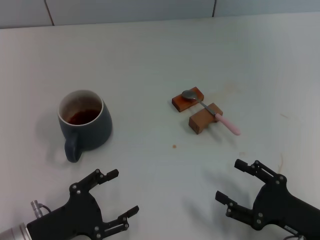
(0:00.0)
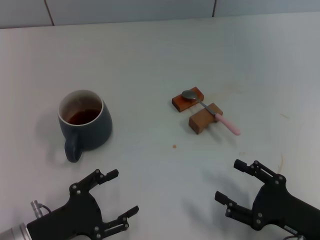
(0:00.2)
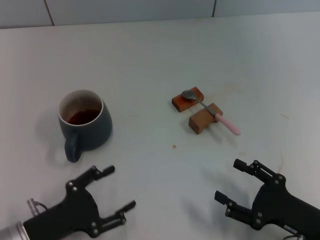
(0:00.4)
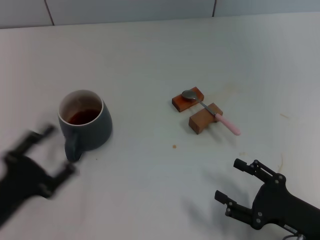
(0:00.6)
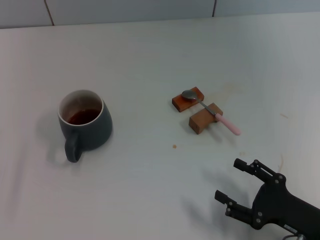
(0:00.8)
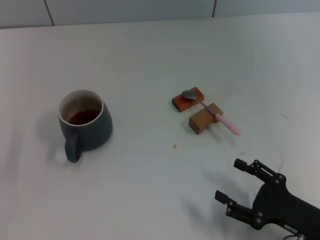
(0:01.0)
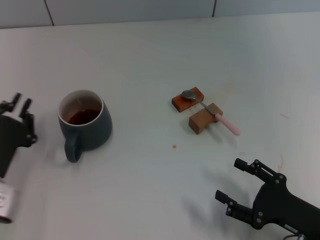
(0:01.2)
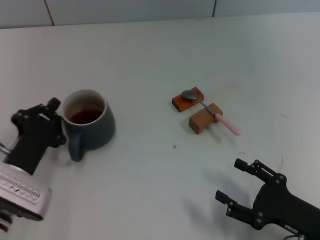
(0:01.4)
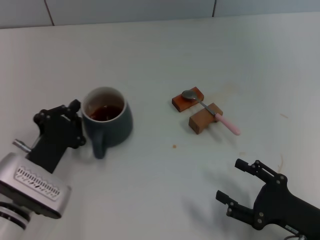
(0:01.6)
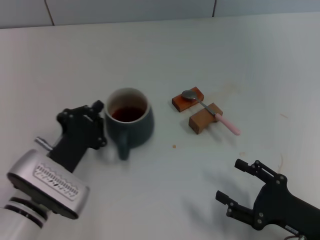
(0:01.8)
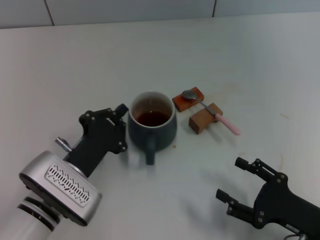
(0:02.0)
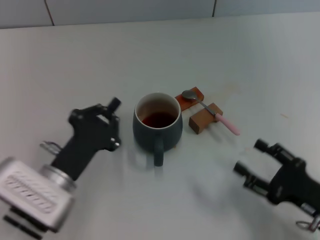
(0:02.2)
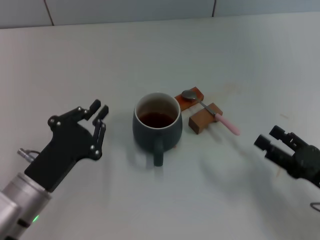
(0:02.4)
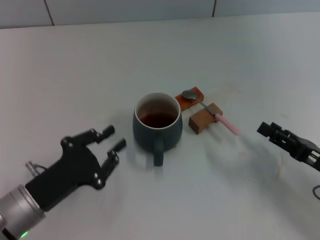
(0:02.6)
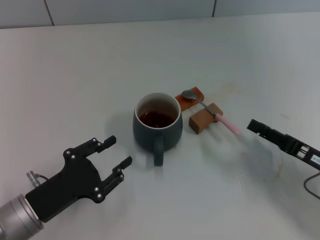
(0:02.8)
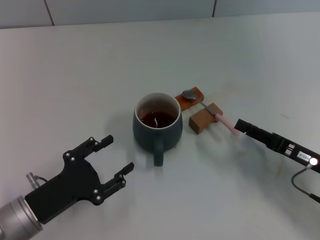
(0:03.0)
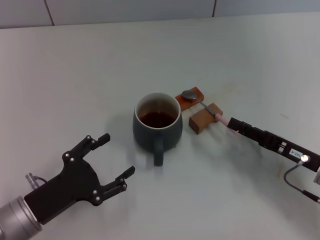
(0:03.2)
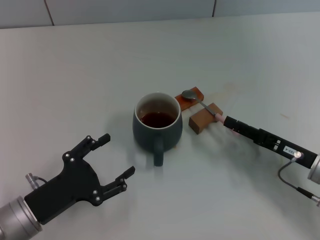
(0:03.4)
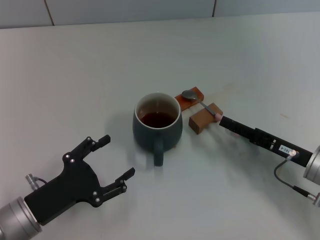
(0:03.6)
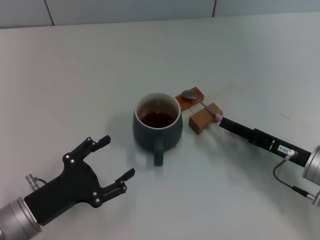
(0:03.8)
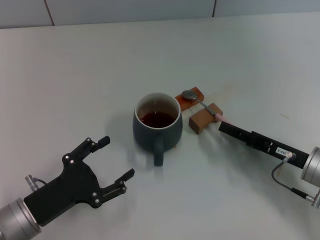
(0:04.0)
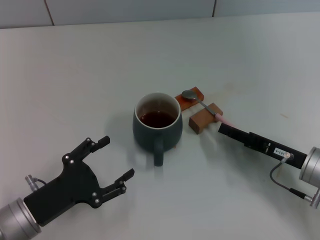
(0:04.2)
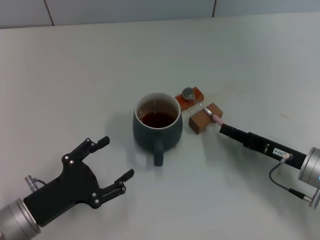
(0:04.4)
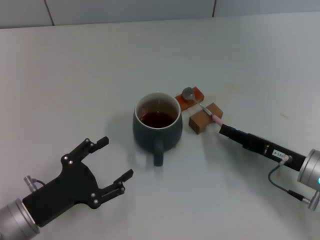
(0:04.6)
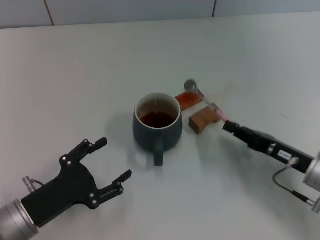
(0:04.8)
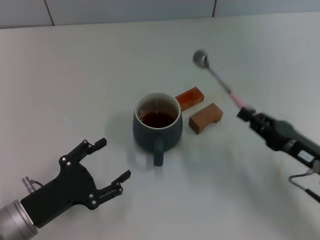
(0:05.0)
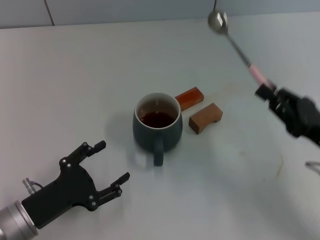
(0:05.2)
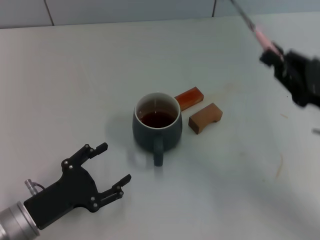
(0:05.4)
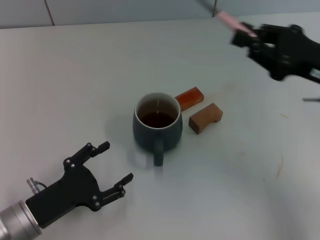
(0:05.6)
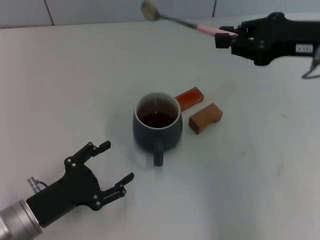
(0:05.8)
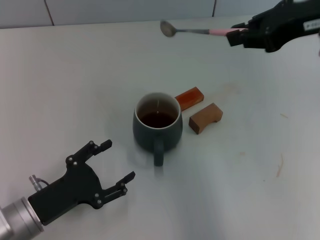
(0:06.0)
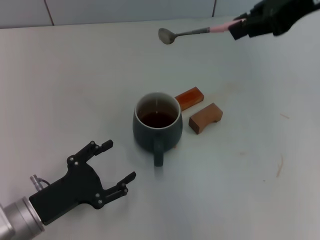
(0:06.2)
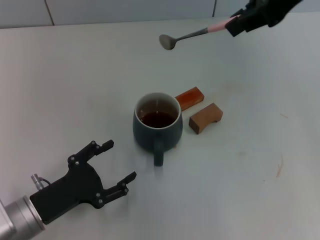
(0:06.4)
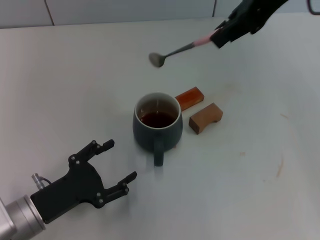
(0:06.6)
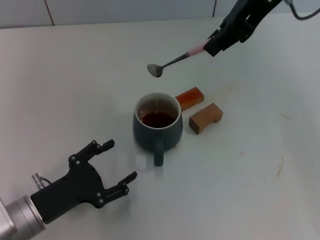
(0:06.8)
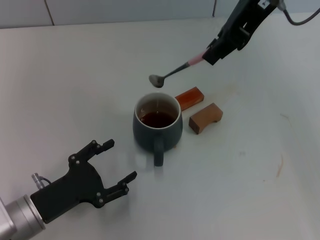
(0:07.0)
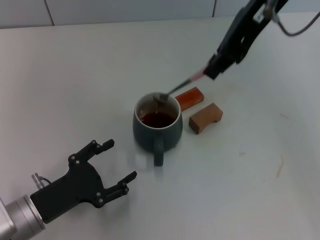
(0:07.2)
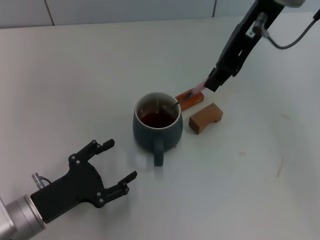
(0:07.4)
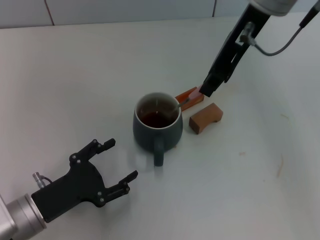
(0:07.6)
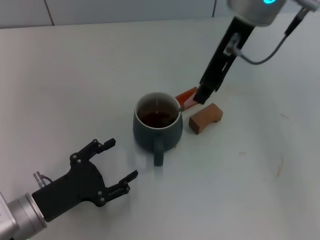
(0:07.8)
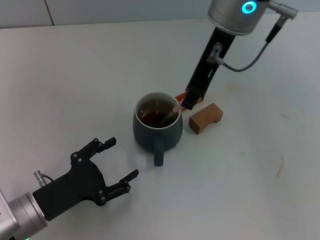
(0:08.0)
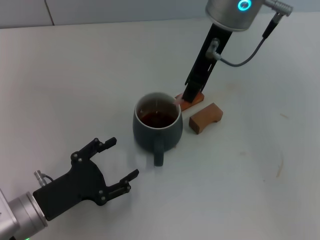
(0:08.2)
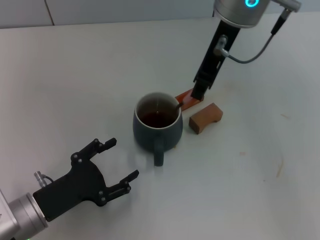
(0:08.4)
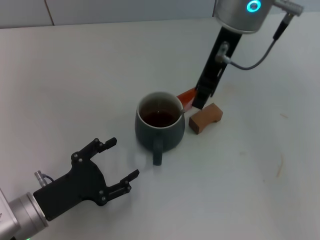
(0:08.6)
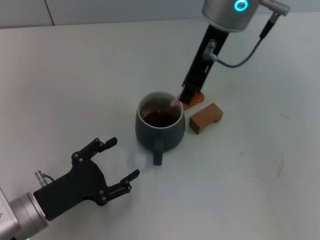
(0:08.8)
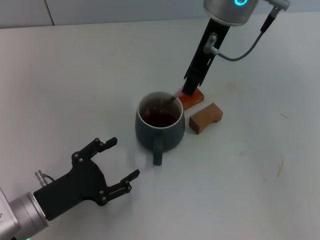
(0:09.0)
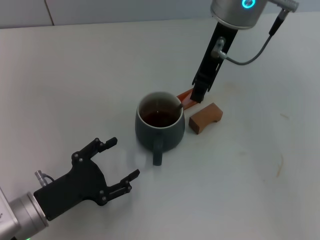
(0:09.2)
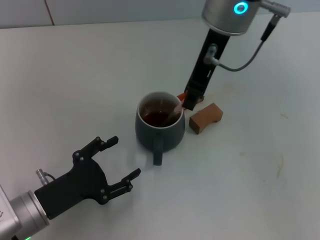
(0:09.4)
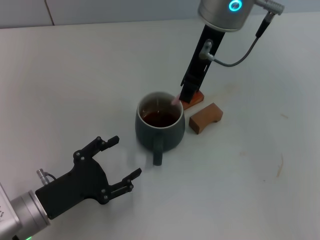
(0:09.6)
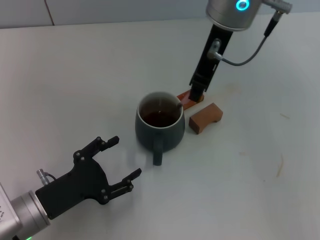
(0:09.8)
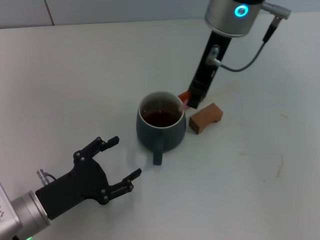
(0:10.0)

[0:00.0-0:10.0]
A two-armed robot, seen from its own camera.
Task of the whole recording: Move the grey cup to the center, lift the pink spoon, stir it three times in the cup, and put the spoon into the cup.
Step, 0:00.0 to 0:02.2: Move the cup with coffee to the center of view with the left gripper.
Step, 0:02.4 to 0:05.0: Pick up the spoon with the right gripper.
0:00.0 to 0:01.4: The left gripper moves forward, approximately 5 cm, moves about 5 cm to the left and comes back, and closes its fingers.
0:01.4 to 0:02.8: The right gripper is displaced forward by approximately 5 cm.
0:02.8 to 0:04.2: The right gripper shifts by about 5 cm, and closes up, while the left gripper opens.
0:04.2 to 0:05.8: The right gripper goes approximately 20 cm upward, and closes.
0:05.8 to 0:07.2: The right gripper goes about 15 cm to the left, upward and forward.
0:07.2 to 0:08.6: The right gripper travels downward by approximately 5 cm.
0:08.6 to 0:10.0: The grippers make only small movements.

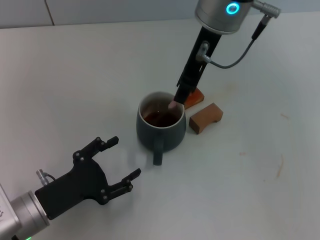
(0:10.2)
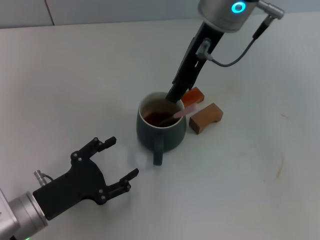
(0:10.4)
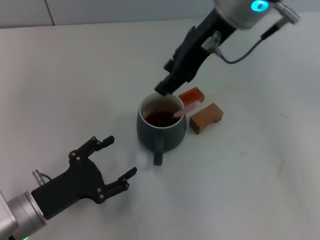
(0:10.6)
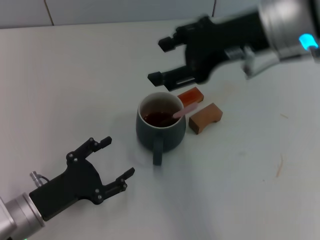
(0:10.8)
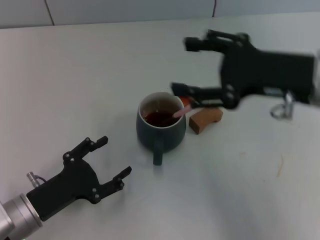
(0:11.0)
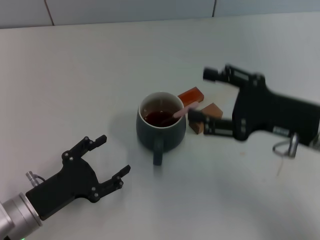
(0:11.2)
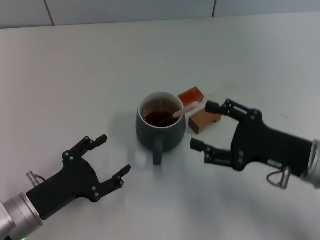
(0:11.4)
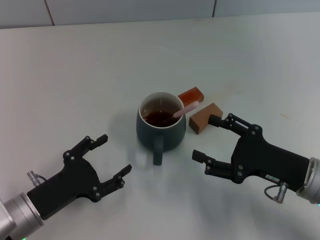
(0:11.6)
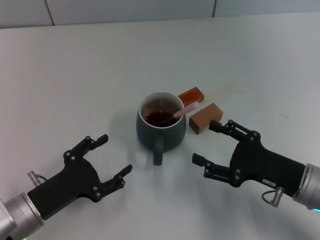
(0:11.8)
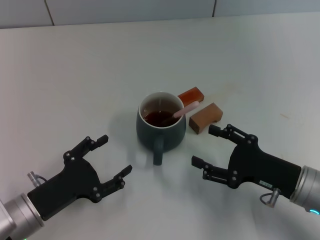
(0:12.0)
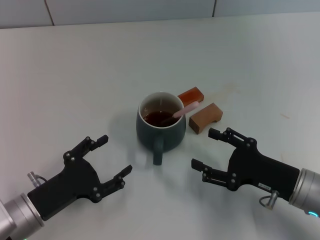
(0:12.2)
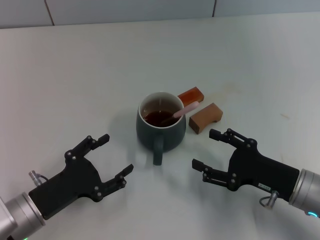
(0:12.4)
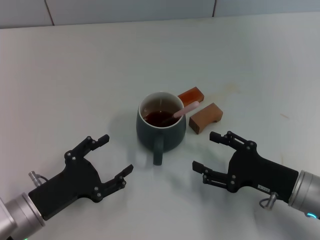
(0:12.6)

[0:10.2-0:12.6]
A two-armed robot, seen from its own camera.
Task of the whole recording: Move the grey cup to the center, lift the pink spoon, stir it three times in the cup, and put the spoon into the cup.
0:10.2 to 0:11.4: The right gripper shifts about 30 cm downward, to the right and backward, and opens.
0:11.4 to 0:12.6: The right gripper moves downward, some 5 cm.

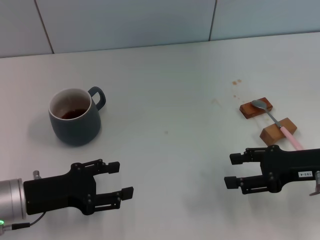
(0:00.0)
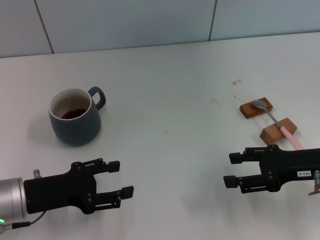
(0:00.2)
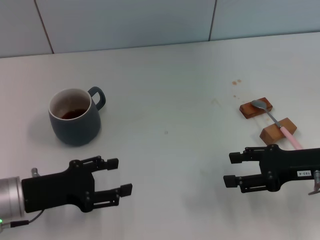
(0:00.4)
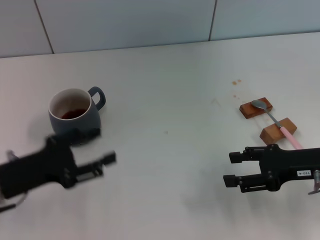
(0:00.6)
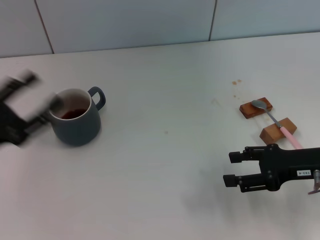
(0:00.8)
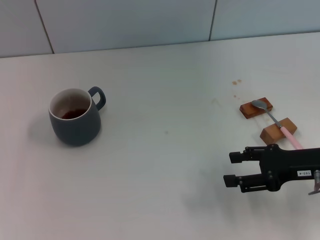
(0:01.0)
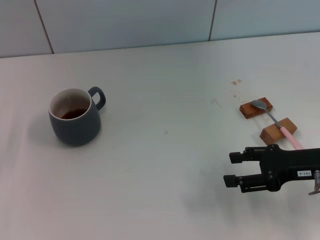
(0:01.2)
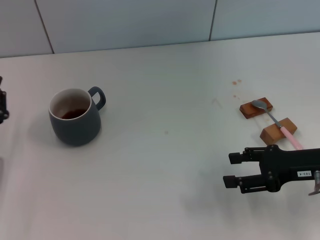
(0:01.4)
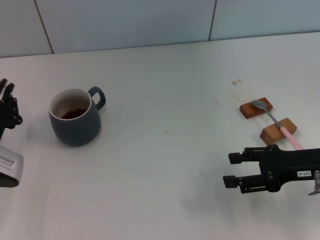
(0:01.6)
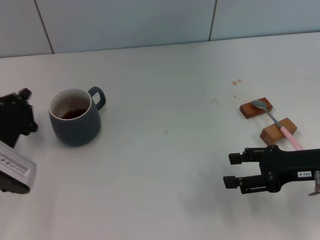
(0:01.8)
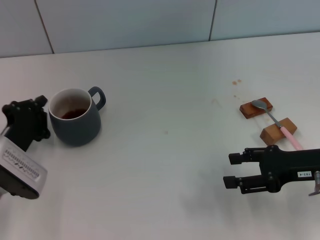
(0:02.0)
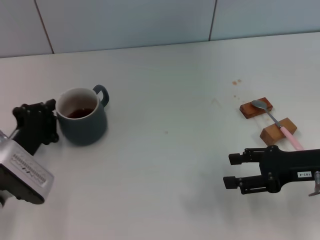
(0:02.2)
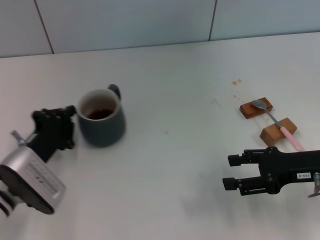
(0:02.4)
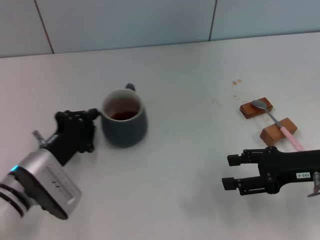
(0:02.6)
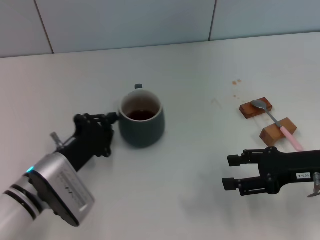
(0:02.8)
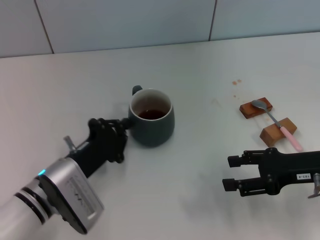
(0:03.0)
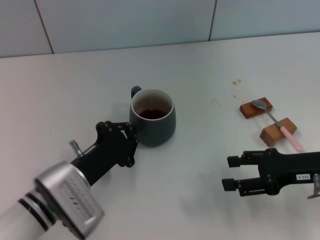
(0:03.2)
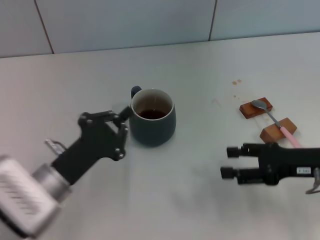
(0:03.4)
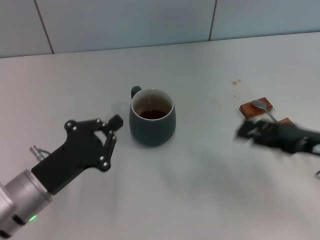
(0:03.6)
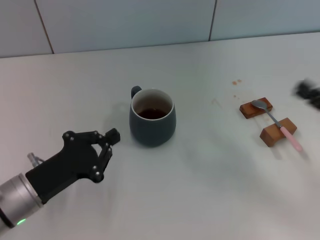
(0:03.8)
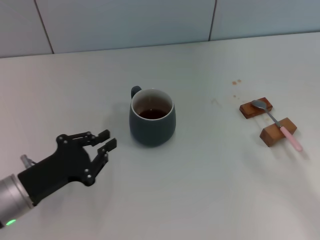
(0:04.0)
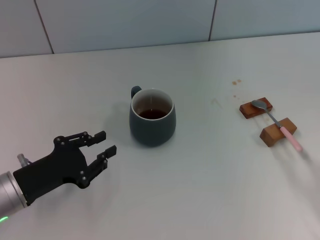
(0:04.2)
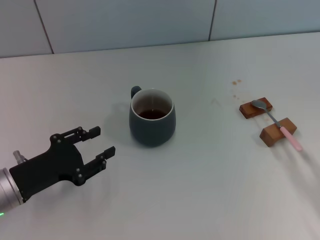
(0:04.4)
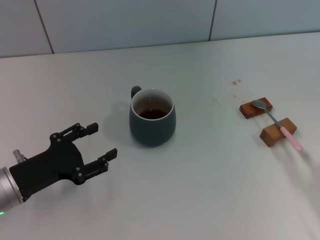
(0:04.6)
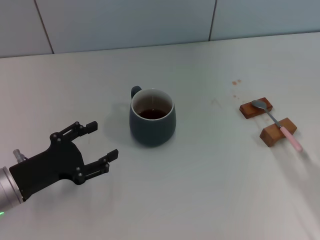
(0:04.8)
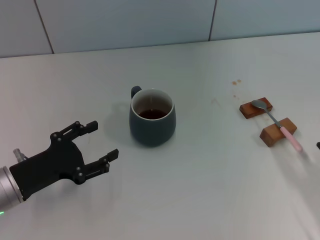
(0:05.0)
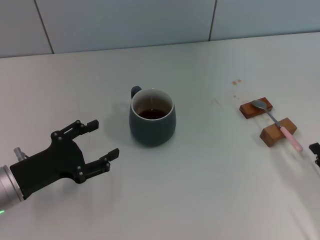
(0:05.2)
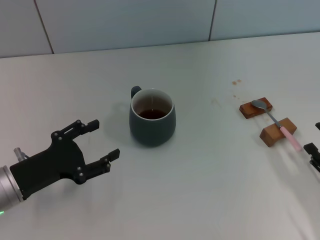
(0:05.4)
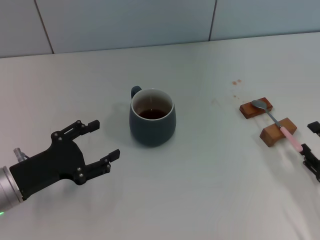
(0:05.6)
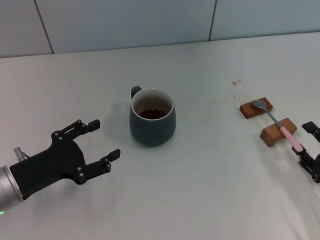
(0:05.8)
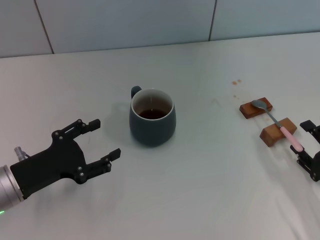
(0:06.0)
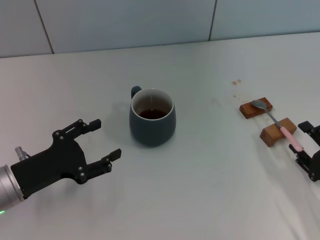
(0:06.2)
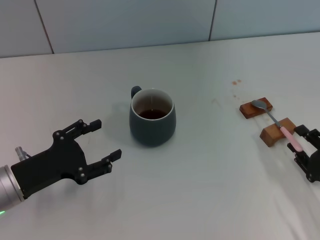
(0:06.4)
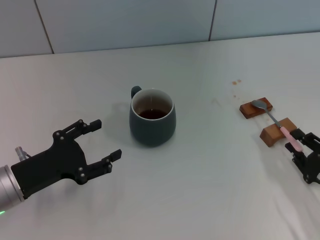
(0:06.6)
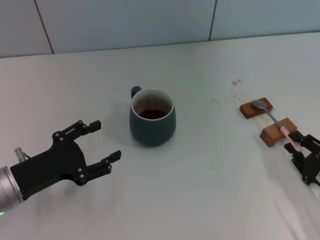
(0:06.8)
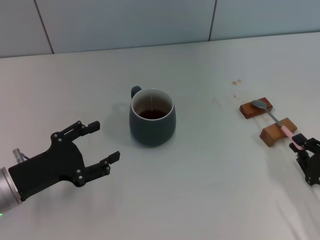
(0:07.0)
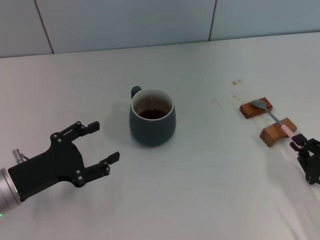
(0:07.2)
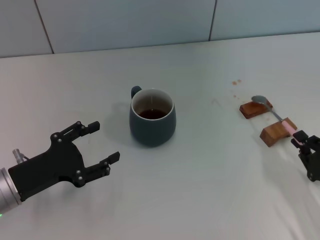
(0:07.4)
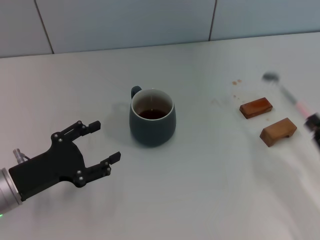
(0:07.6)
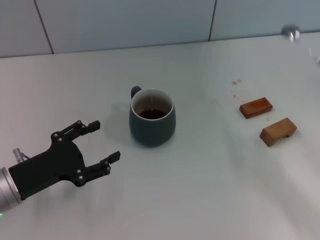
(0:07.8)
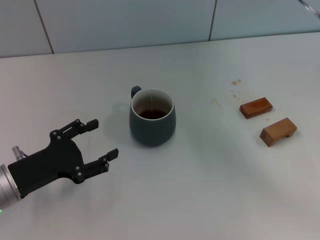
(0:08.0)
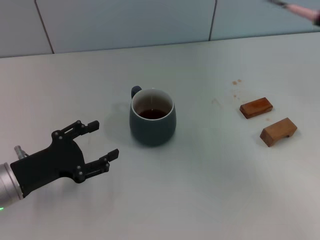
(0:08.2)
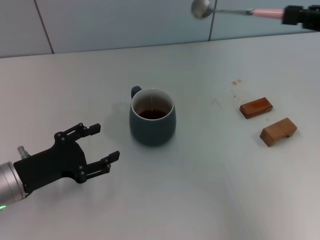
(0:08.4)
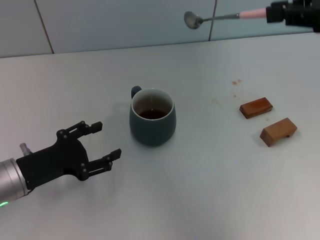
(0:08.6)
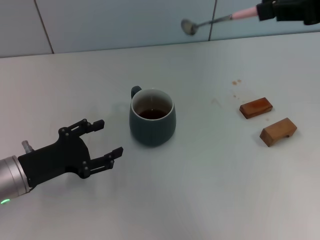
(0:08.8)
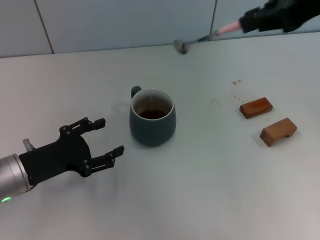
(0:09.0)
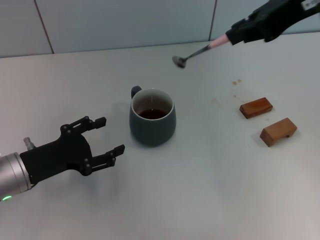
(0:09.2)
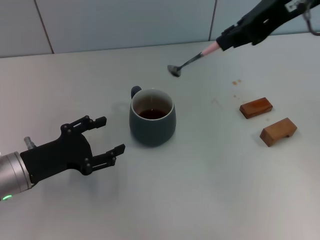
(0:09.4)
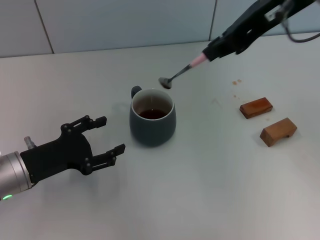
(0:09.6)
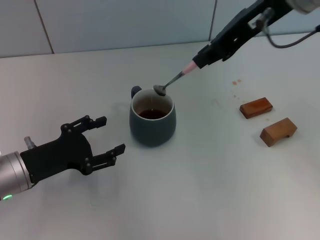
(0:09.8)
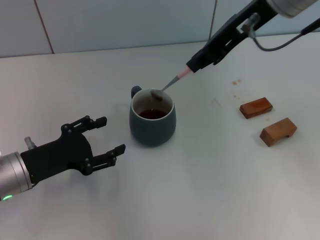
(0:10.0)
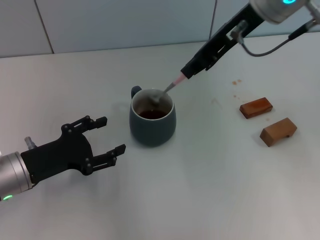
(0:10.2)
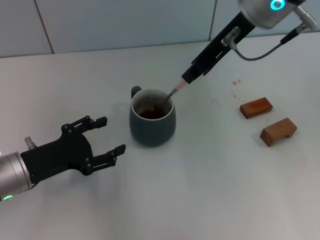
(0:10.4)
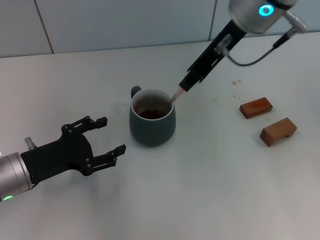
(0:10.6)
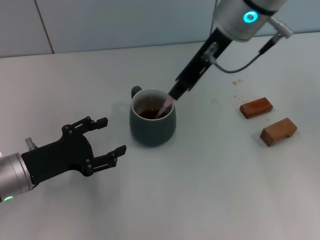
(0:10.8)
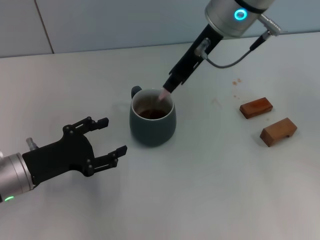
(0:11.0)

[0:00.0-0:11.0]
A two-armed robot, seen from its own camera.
Task of the whole recording: Move the grey cup to the center, lift the pink spoon, stir it three times in the cup, and put the spoon into the cup.
Step, 0:00.0 to 0:03.2: Move the cup with coffee to the center of view with the left gripper.
Step, 0:03.4 to 0:07.4: Pick up the spoon with the right gripper.
0:00.0 to 0:01.6: The left gripper reaches some 10 cm to the left, then returns, and closes its fingers.
0:01.6 to 0:03.2: The left gripper goes some 10 cm to the right, and closes.
0:03.2 to 0:04.8: The right gripper goes roughly 15 cm backward, downward and to the right; the left gripper heads to the left, covering approximately 10 cm, and opens up.
0:04.8 to 0:06.2: The grippers make only small movements.
0:06.2 to 0:07.8: The right gripper travels upward by approximately 5 cm, and closes up.
0:07.8 to 0:09.4: The right gripper heads upward, to the left and forward, covering some 35 cm.
0:09.4 to 0:11.0: The right gripper is displaced to the left, downward and forward by approximately 15 cm.
